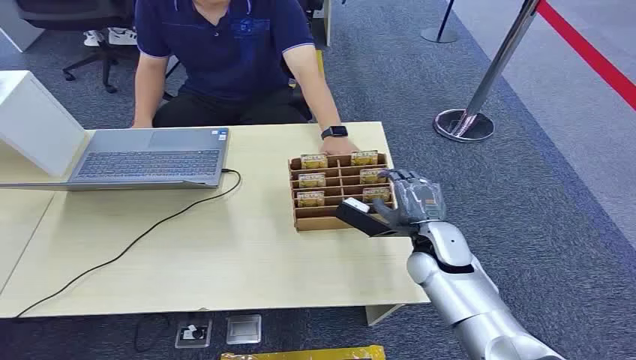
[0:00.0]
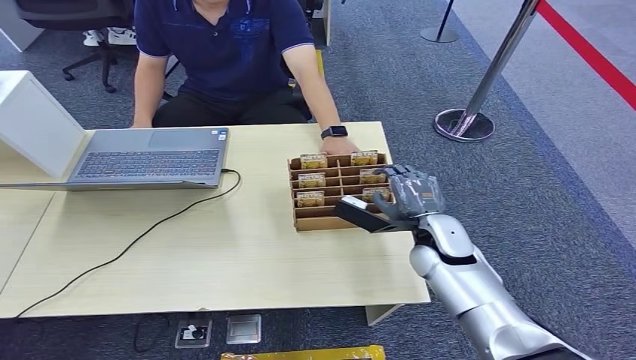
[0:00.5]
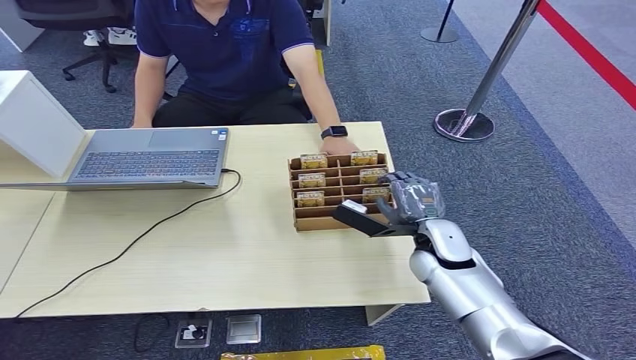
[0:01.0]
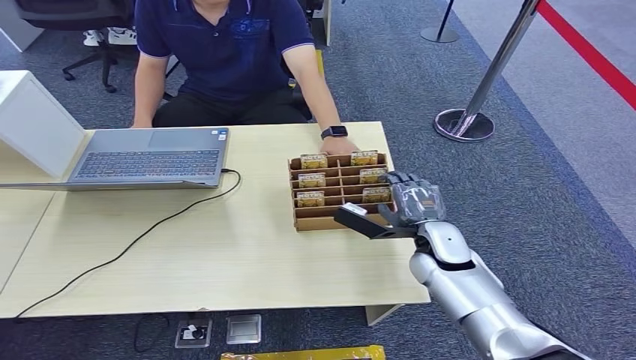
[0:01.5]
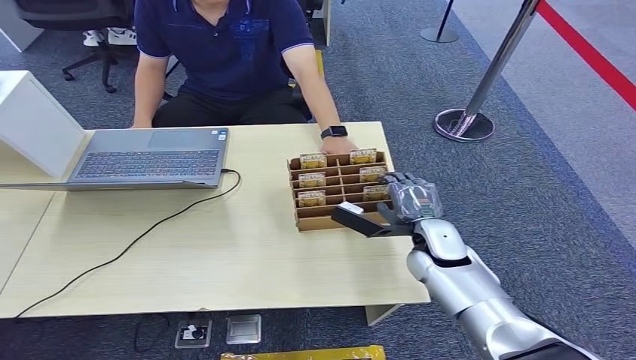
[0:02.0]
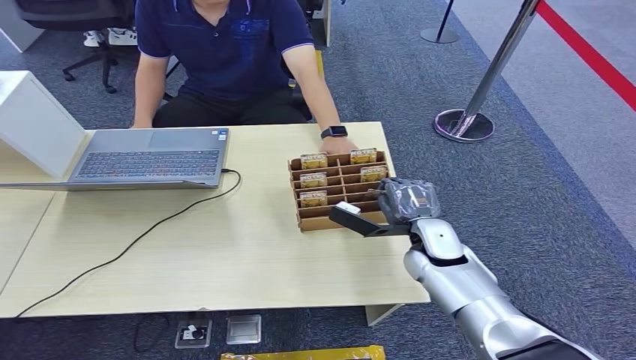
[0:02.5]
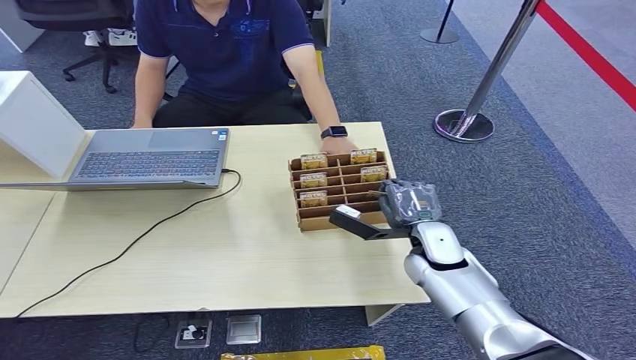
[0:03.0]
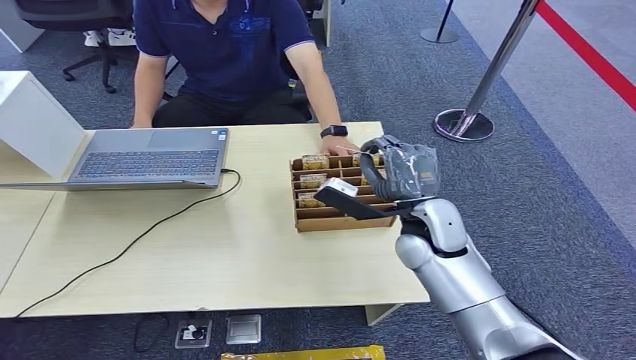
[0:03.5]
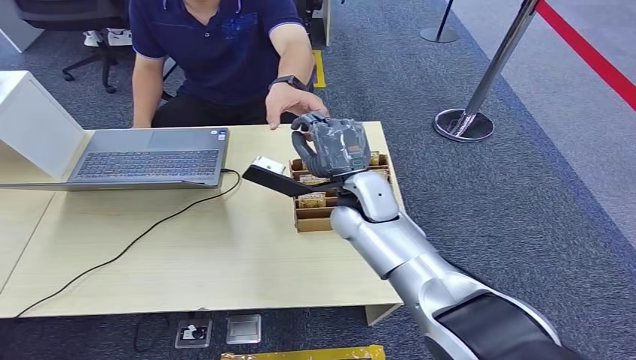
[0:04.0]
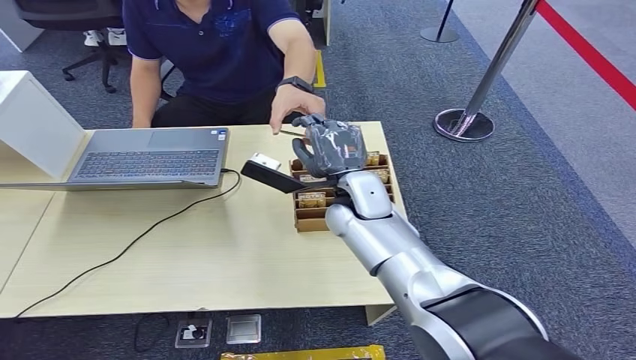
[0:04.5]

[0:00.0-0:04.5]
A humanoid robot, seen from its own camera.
Step, 0:00.0 to 0:03.0: Pick up the room card from the card holder.
Step, 0:03.5 to 0:04.5: Hand the room card to the target.
0:02.0 to 0:04.5: The right hand travels to the left, upward and forward by about 15 cm.
